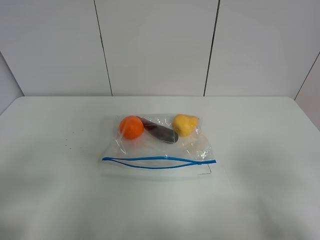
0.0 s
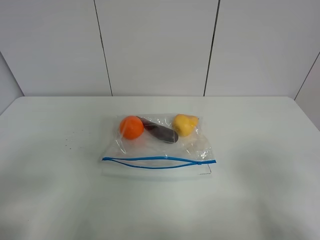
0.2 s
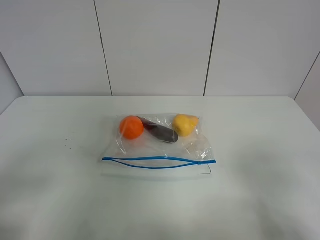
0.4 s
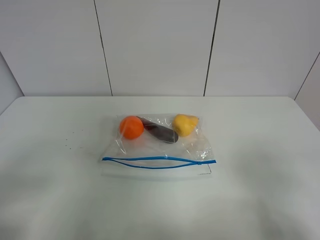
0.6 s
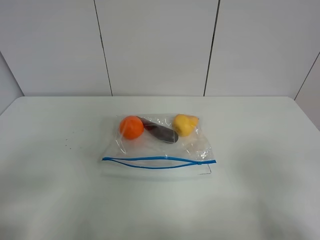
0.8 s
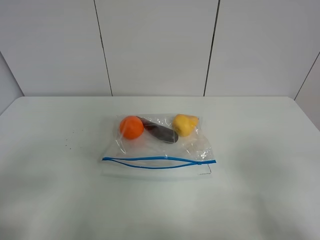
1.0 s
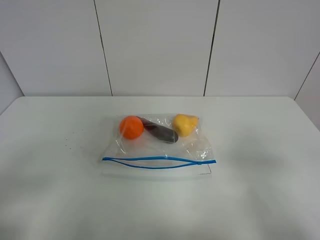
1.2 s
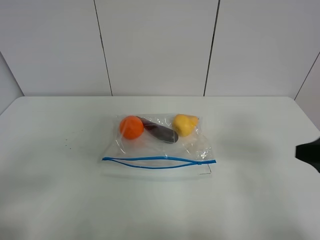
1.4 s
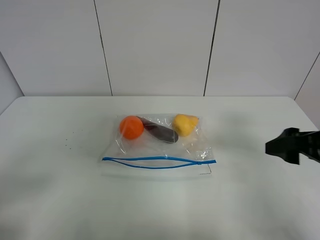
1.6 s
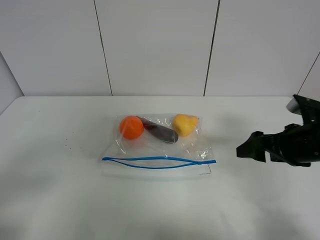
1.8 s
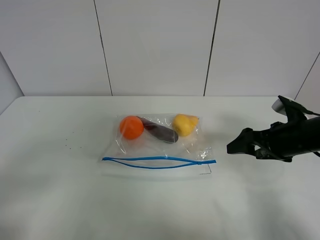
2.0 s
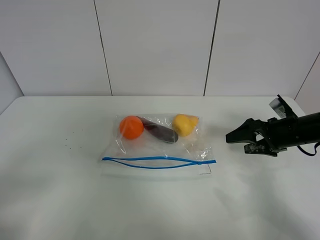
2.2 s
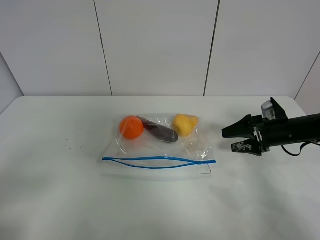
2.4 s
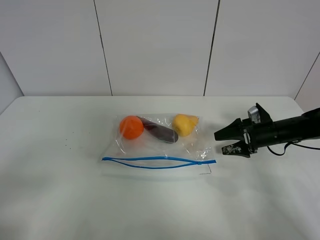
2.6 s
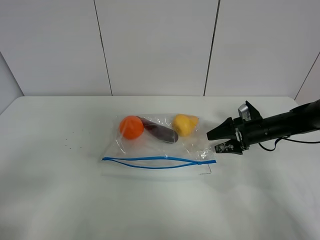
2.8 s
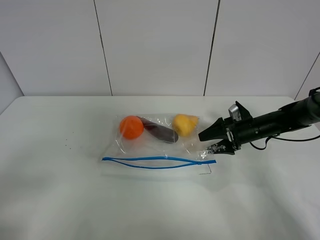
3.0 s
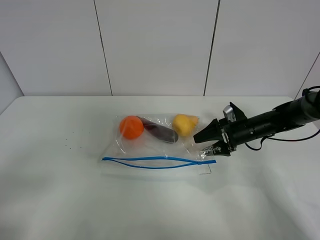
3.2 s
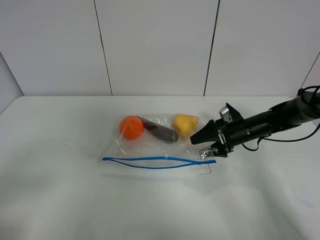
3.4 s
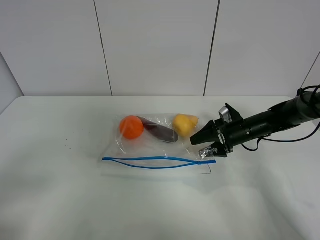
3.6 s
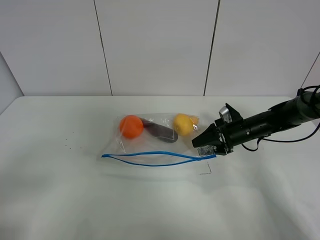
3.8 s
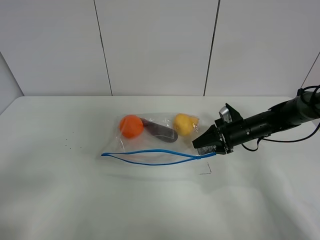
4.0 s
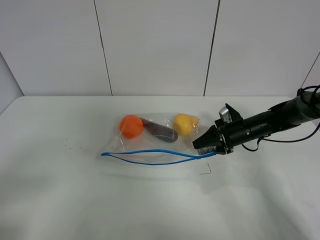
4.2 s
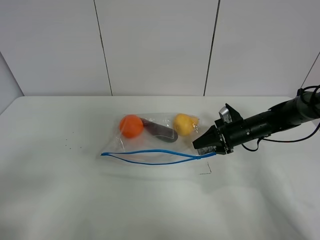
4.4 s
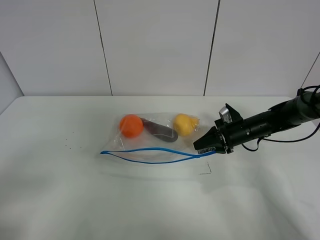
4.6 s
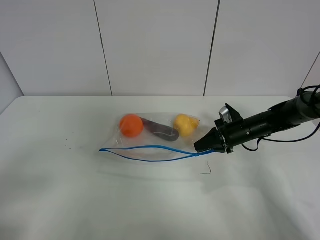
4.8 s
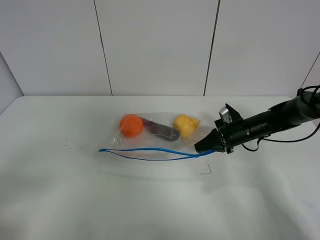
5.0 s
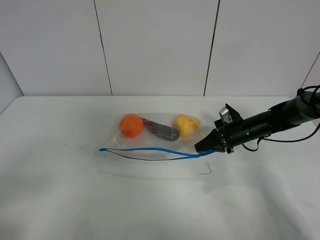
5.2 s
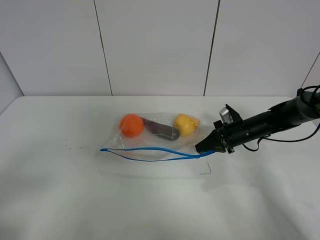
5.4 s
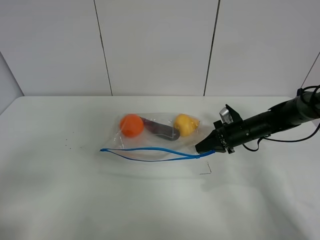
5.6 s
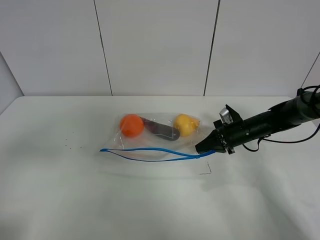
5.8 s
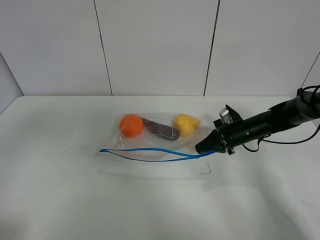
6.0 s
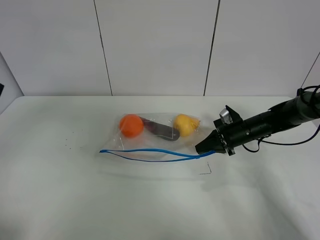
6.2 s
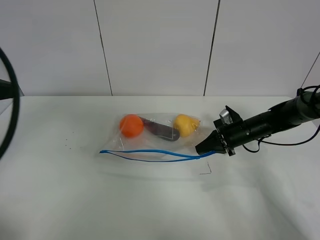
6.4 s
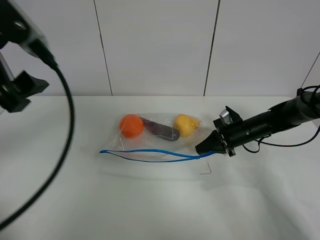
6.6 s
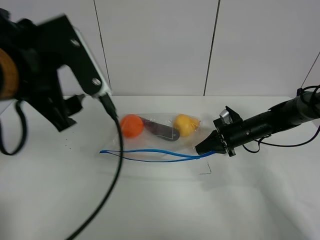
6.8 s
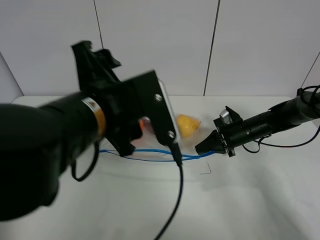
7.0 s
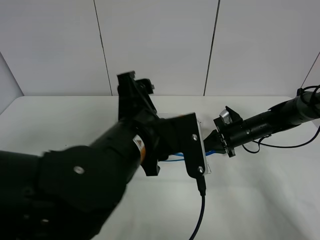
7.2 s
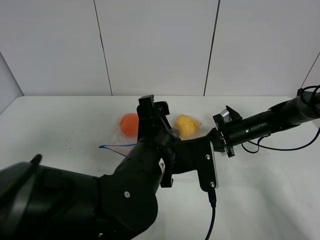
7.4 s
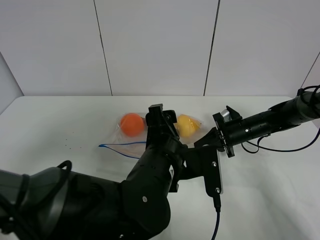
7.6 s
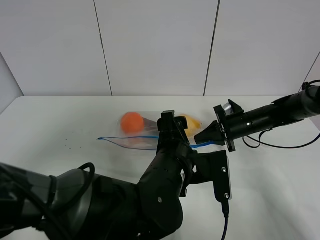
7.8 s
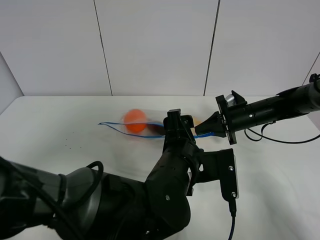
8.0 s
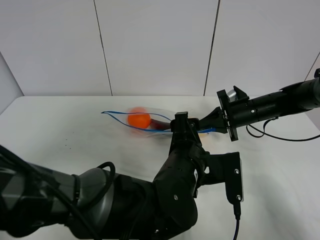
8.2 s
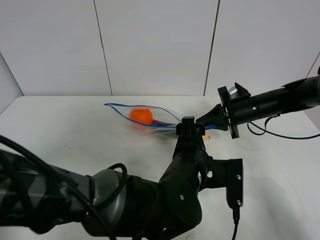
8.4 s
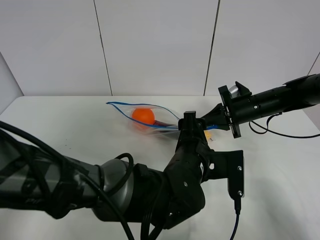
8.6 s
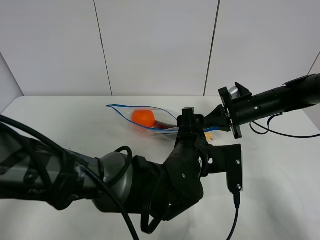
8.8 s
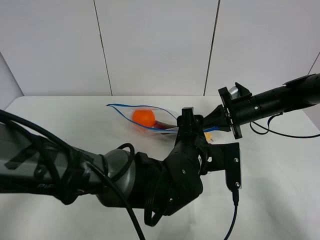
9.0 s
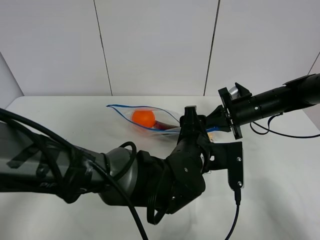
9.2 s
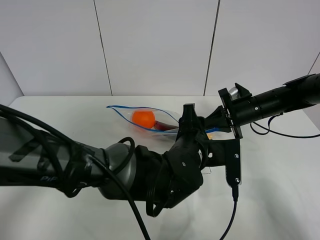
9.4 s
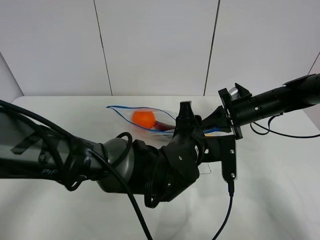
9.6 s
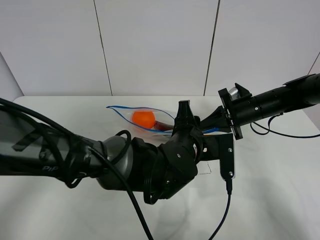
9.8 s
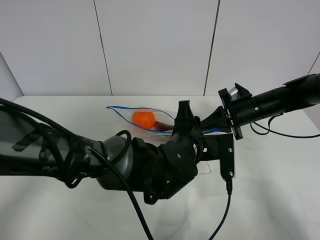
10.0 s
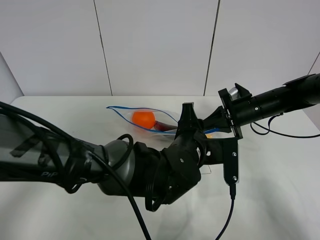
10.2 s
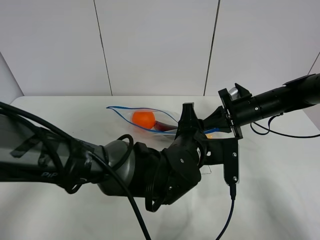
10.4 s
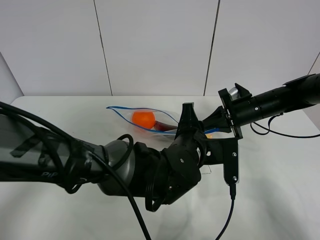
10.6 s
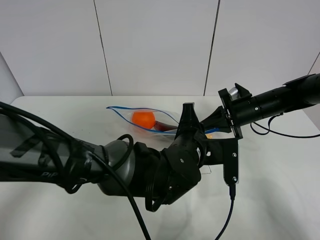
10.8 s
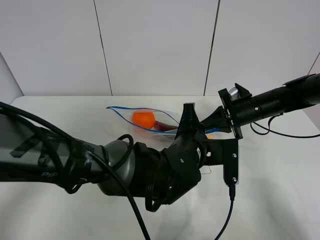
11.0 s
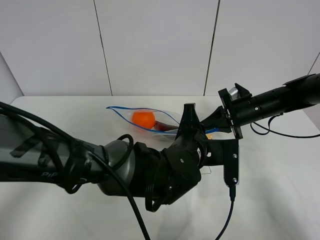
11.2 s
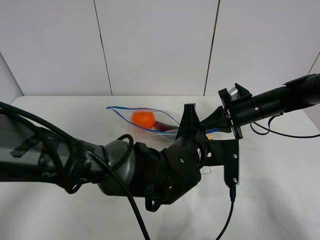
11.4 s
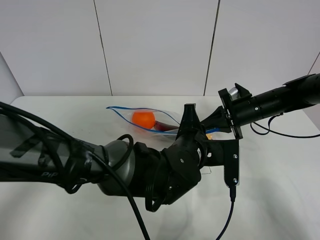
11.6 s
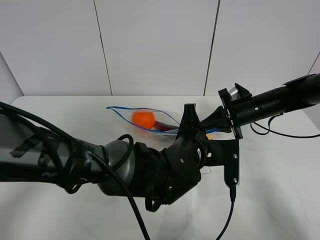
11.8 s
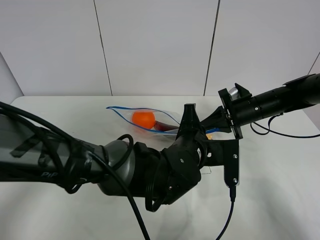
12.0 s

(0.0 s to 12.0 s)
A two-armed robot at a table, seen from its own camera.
Step, 0.0 s - 5.0 s: Grasp the fruit bag with right gripper.
0.0 s - 1.6 s: The right gripper travels forward by roughly 20 cm.
1.6 s - 3.0 s: The right gripper goes about 25 cm forward and downward.
3.0 s - 4.4 s: The right gripper closes.
4.4 s - 6.0 s: The left gripper shifts some 15 cm forward and upward, while the right gripper closes up.
6.0 s - 7.6 s: The left gripper moves to the right and downward, approximately 40 cm.
7.6 s - 9.0 s: The right gripper travels upward by roughly 5 cm. The left gripper ends up about 5 cm from where it was.
9.0 s - 10.4 s: The grippers stay close to where they were, moving slightly.
10.4 s - 12.0 s: Both grippers stay put.

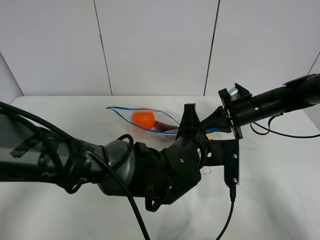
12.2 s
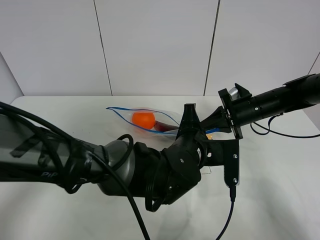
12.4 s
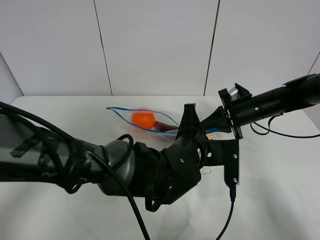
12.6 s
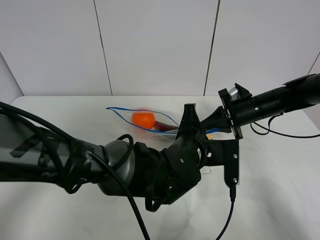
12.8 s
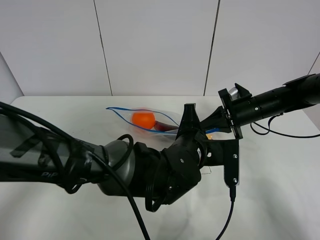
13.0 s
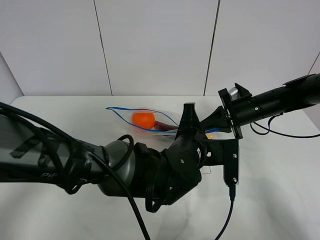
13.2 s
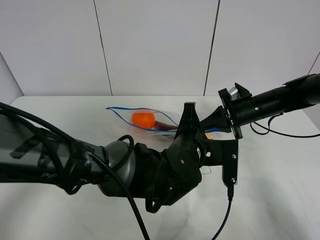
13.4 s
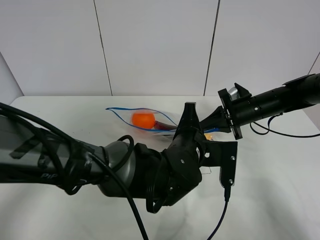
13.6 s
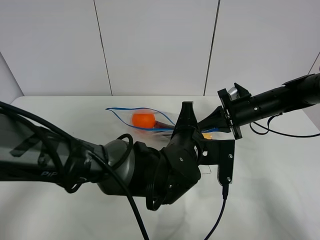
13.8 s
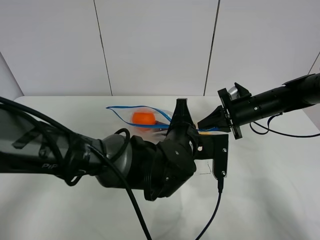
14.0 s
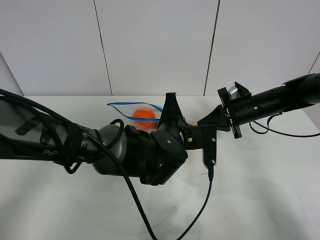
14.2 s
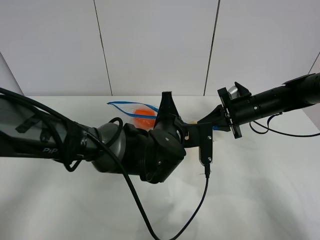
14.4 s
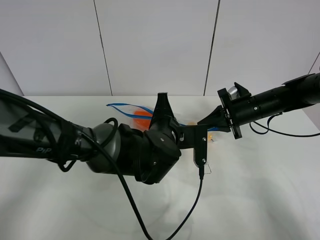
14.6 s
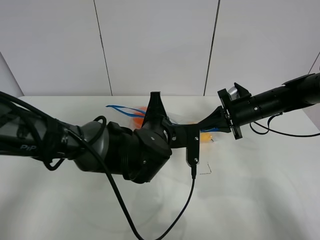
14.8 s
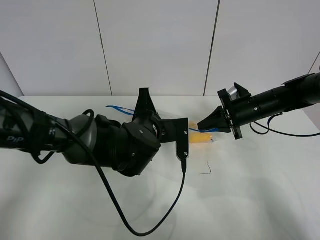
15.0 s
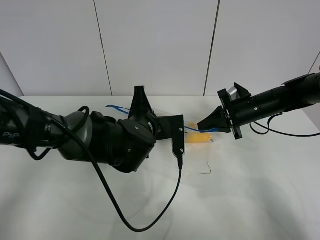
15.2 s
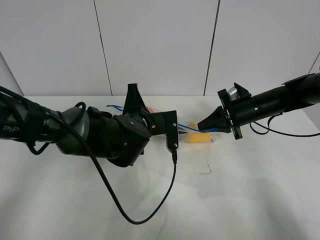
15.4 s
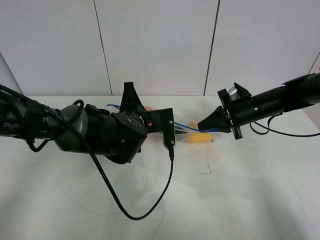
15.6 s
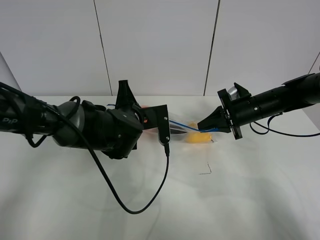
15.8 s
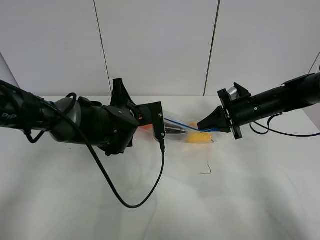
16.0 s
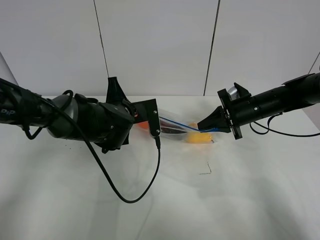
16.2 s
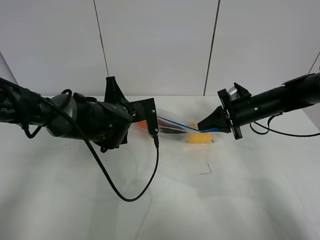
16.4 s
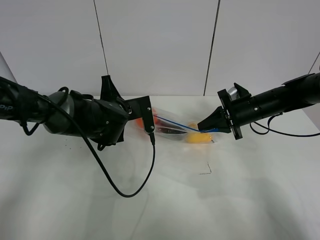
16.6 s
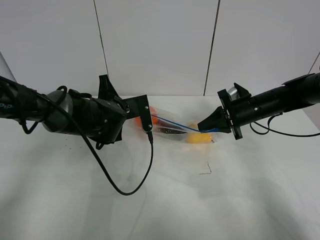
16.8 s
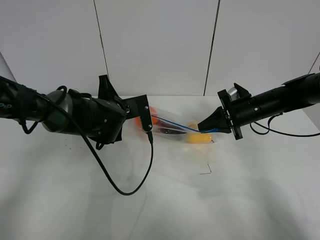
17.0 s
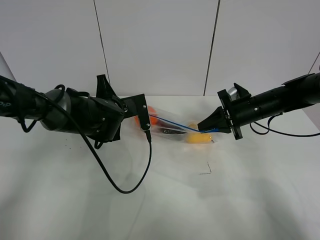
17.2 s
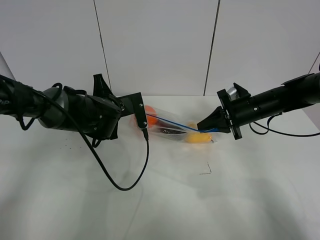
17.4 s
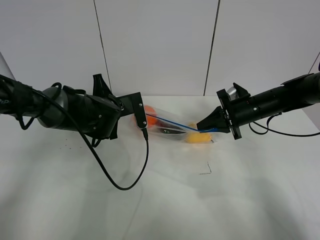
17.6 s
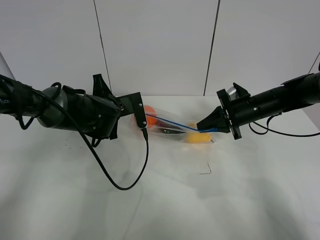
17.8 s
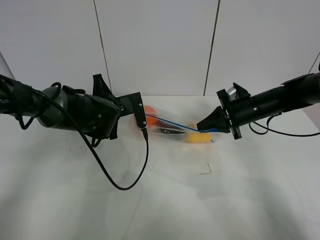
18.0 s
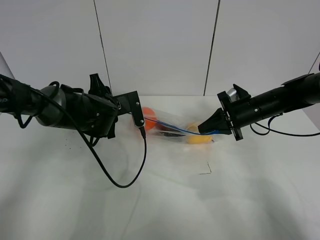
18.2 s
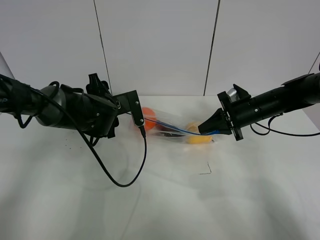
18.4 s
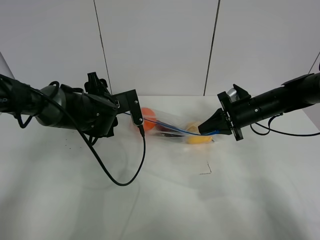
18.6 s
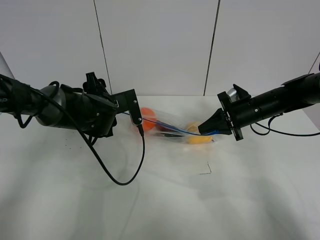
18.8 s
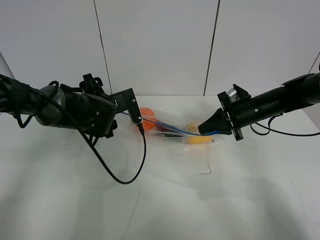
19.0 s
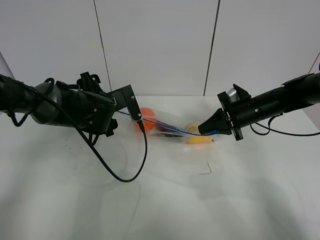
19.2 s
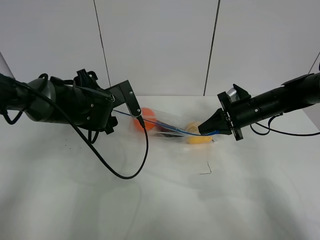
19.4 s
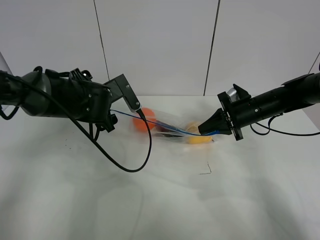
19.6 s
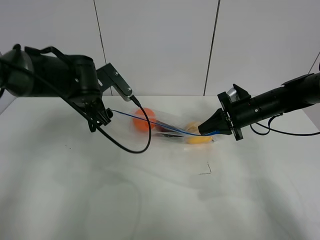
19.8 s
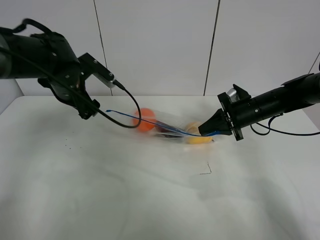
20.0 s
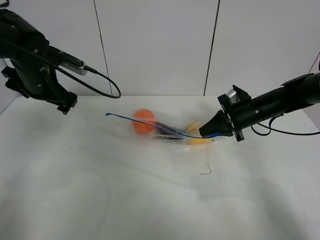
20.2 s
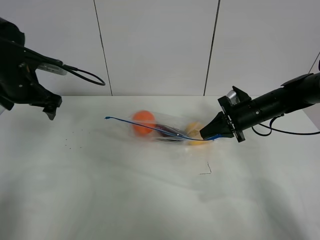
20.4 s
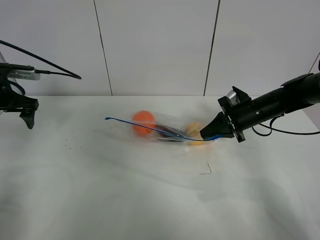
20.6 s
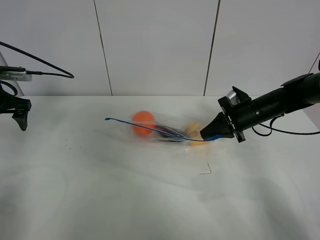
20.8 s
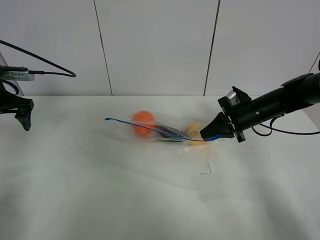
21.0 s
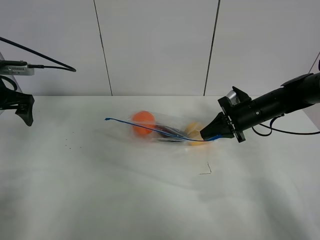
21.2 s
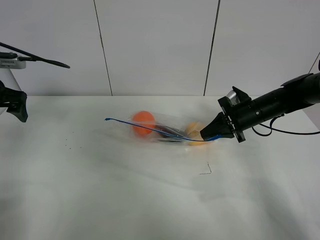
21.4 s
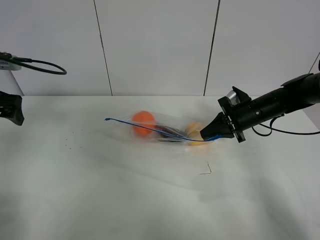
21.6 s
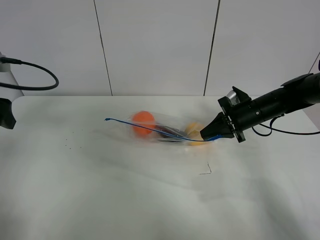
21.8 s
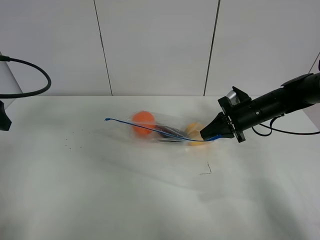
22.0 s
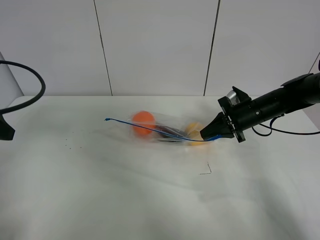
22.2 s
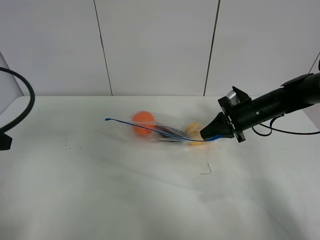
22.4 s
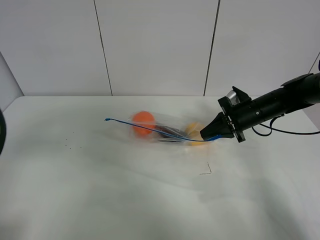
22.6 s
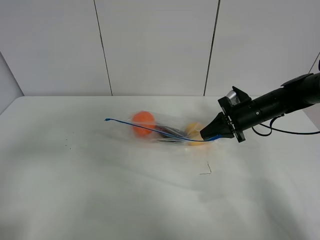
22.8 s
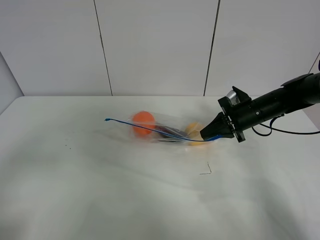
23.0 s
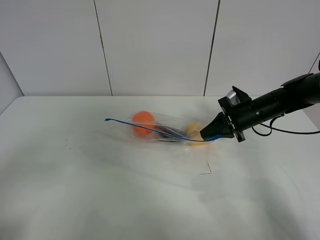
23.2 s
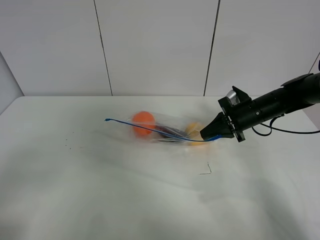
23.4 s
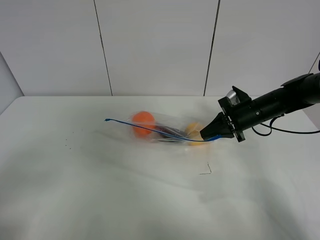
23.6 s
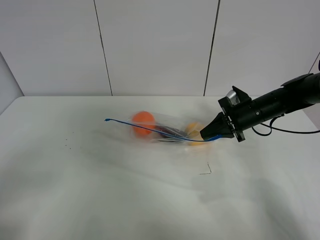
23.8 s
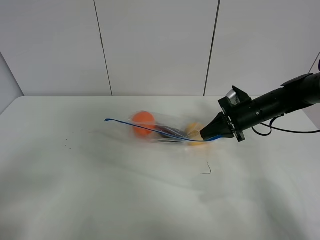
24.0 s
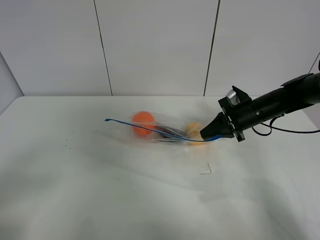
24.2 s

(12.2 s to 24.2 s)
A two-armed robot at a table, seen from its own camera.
Step, 12.2 s - 18.4 s: Pull the fruit bag with left gripper.
12.2 s - 13.8 s: The grippers stay close to where they were, moving slightly.
13.8 s - 15.2 s: The left gripper is displaced to the left by approximately 10 cm.
15.2 s - 16.6 s: The left gripper travels to the left and forward by some 10 cm.
16.6 s - 18.2 s: The left gripper opens.
18.2 s - 19.8 s: The left gripper travels upward by about 5 cm, and opens.
19.8 s - 21.2 s: The left gripper moves to the left, approximately 20 cm.
21.2 s - 22.6 s: The left gripper travels backward by roughly 25 cm.
22.6 s - 24.2 s: The left gripper moves backward, roughly 10 cm.
